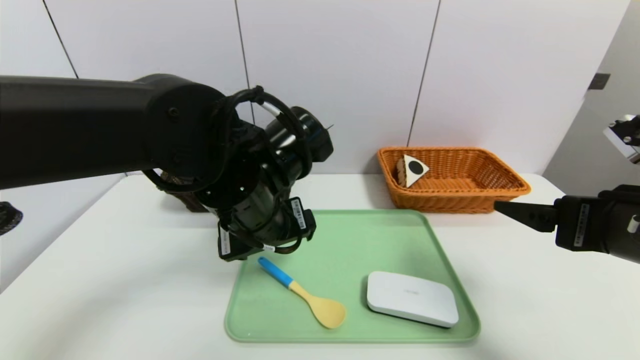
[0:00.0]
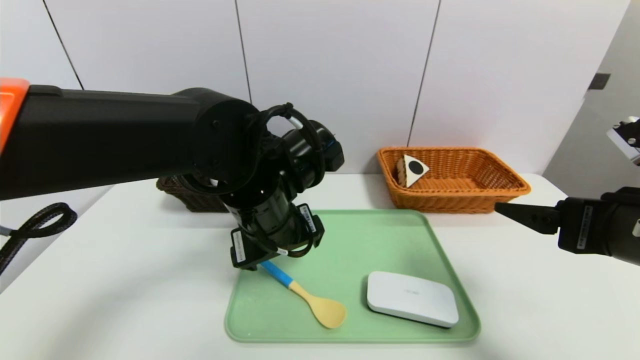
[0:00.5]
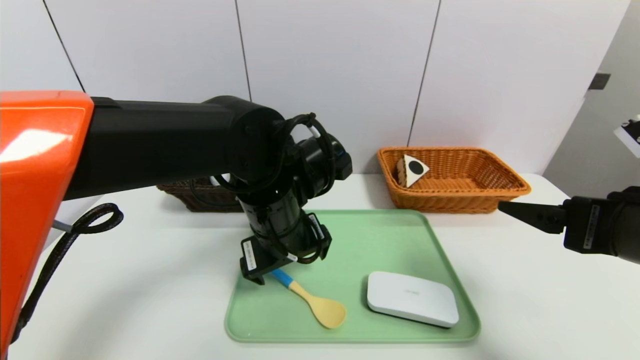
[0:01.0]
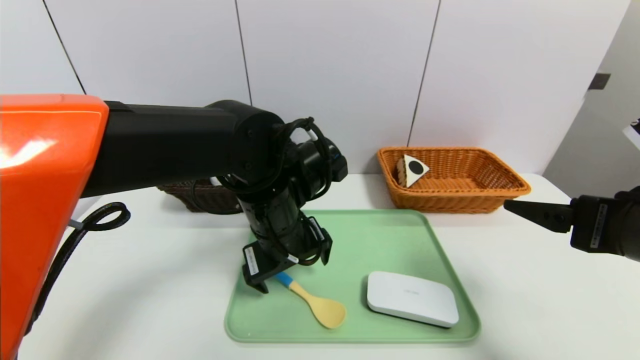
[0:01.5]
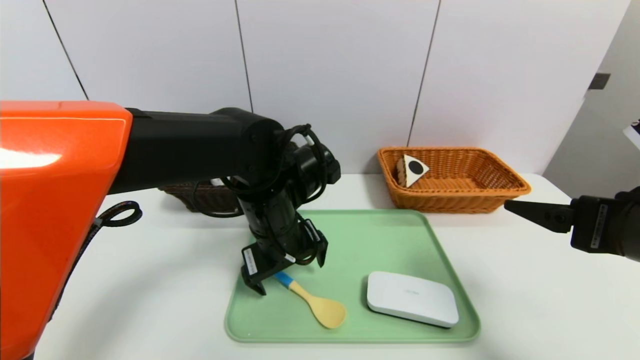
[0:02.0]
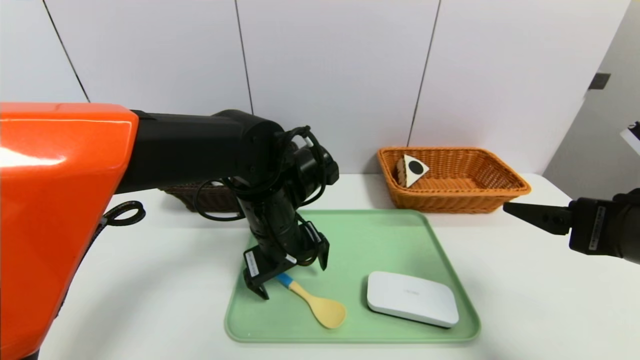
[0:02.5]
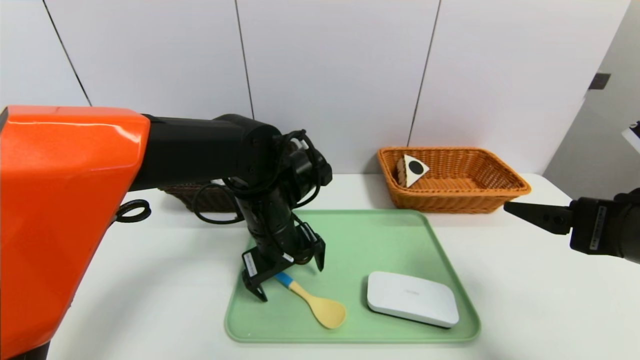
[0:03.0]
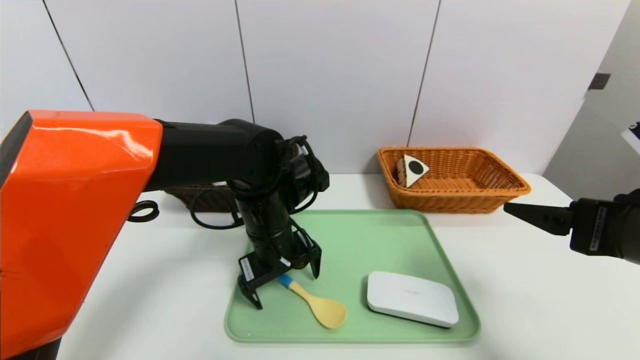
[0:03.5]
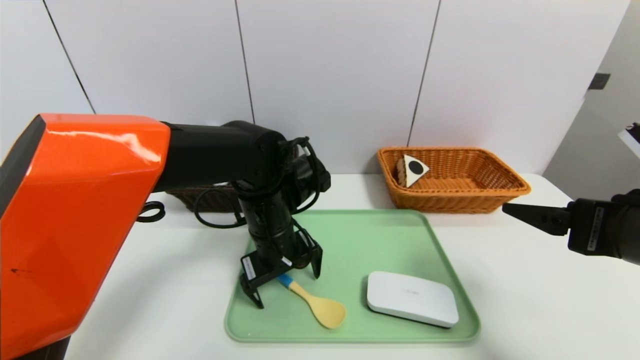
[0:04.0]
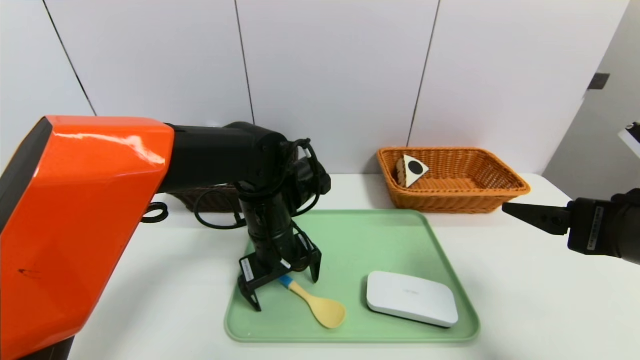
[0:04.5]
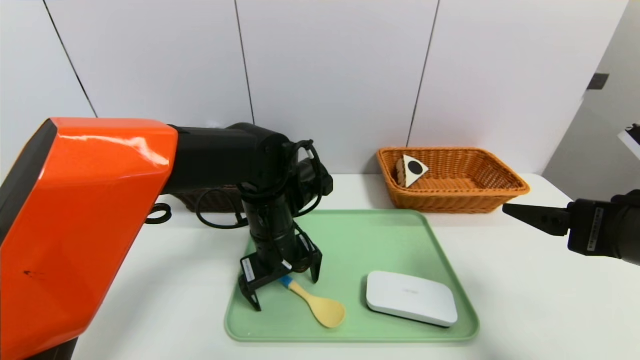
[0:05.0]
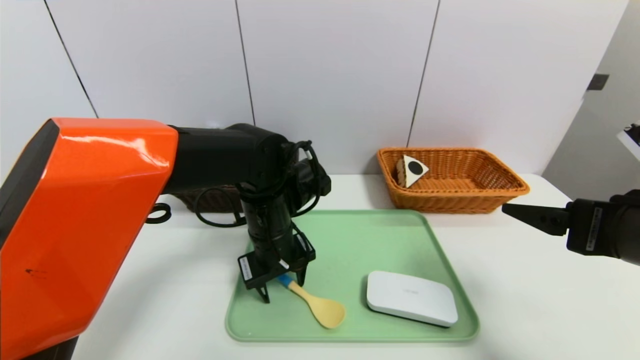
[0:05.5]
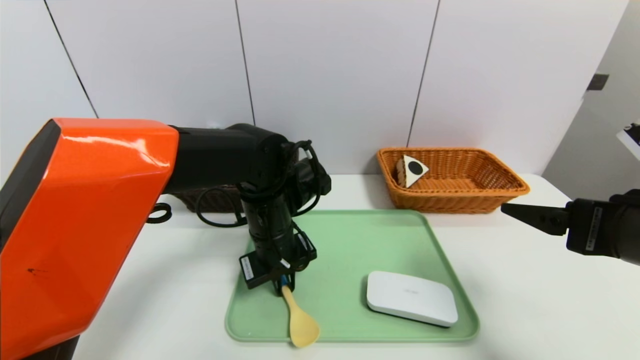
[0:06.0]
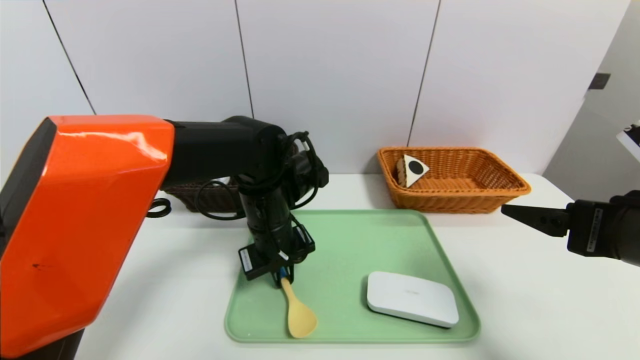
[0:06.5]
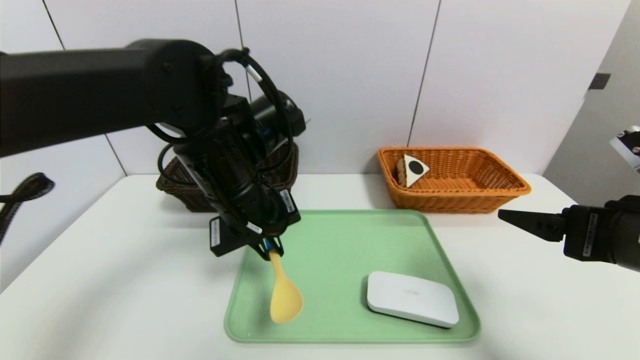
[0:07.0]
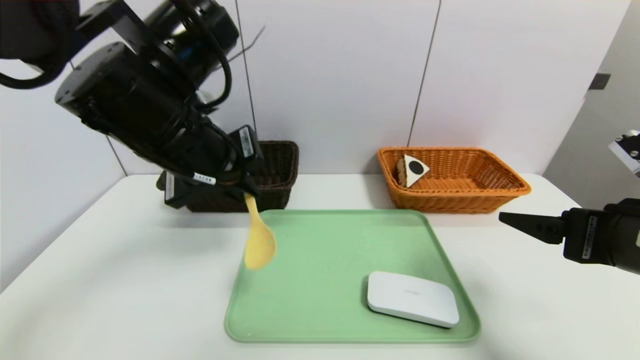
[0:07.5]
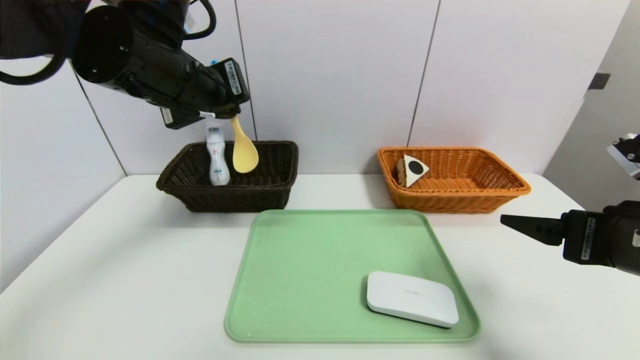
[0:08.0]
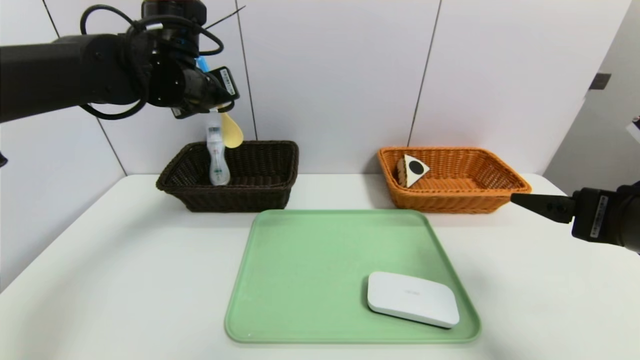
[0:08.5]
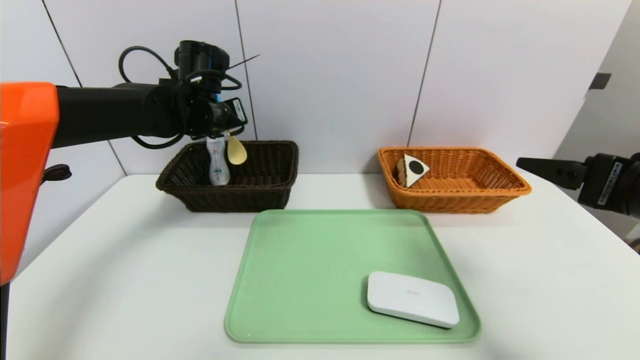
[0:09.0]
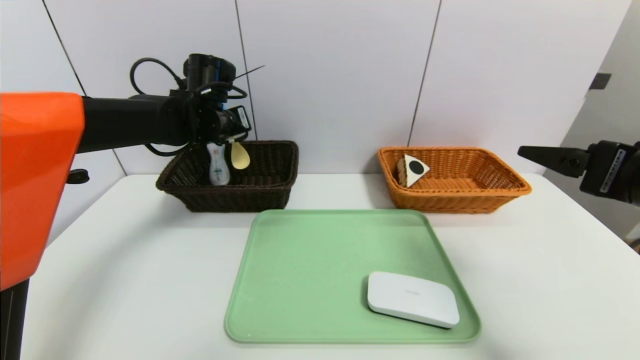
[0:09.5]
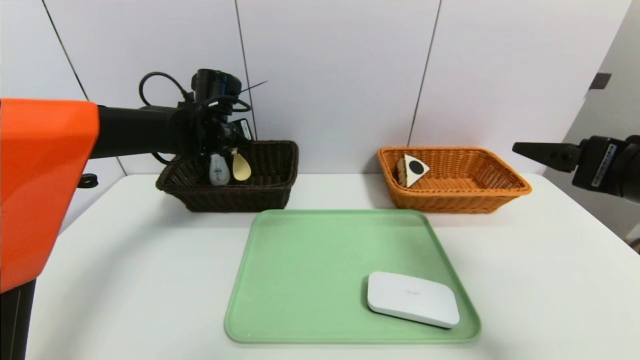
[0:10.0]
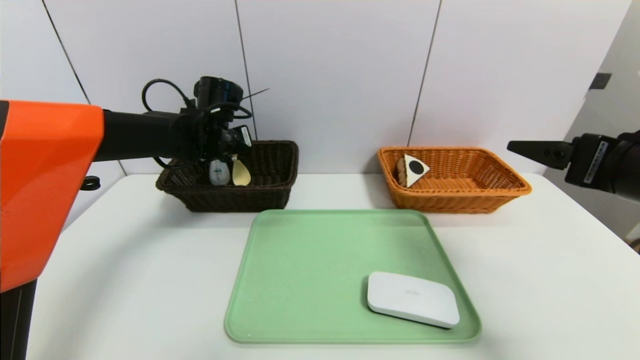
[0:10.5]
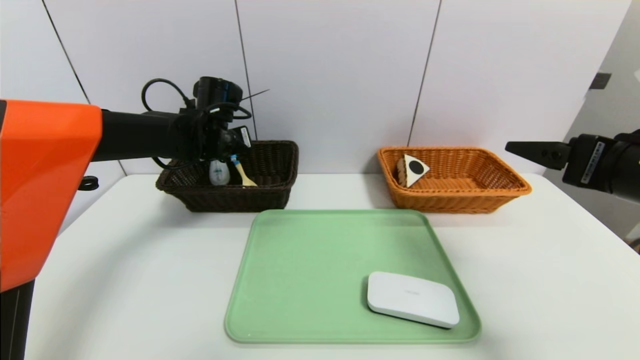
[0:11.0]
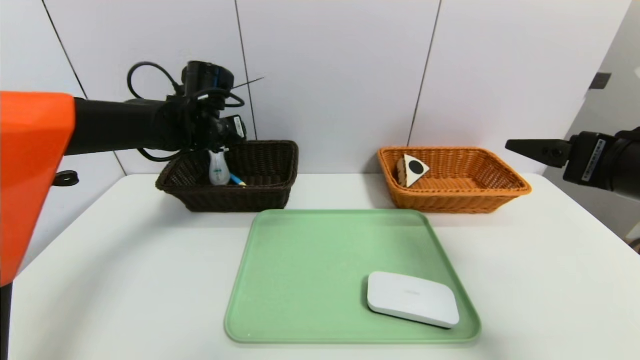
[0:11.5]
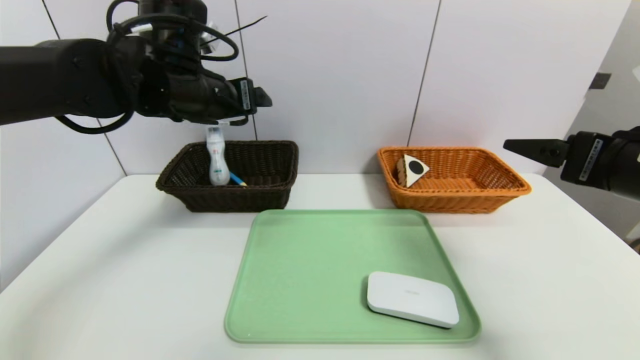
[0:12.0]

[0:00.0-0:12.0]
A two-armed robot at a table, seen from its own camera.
Task of the whole recording: place the food in the right basket with the right gripper, and place the non food items in the left basket with the left gripper.
Step, 0:00.0 to 0:11.0: Grasp the spoon and put it in the left basket.
0:00.0 to 0:02.0: The left gripper shifts by about 5 cm.
0:02.0 to 0:04.0: The grippers stay close to where they were, moving slightly.
0:04.0 to 0:06.0: The left gripper closes up.
0:06.0 to 0:08.0: The left gripper travels upward and to the left by roughly 20 cm.
0:08.0 to 0:10.0: The left gripper heads forward and downward, covering approximately 20 cm. Meanwhile the right gripper ends up roughly 5 cm from where it was.
0:10.0 to 0:12.0: The left gripper moves backward and upward, approximately 15 cm, and opens up.

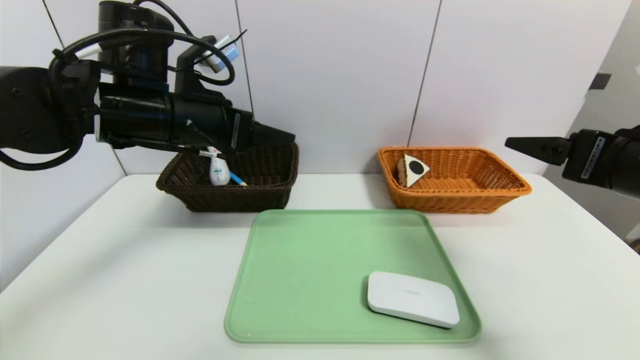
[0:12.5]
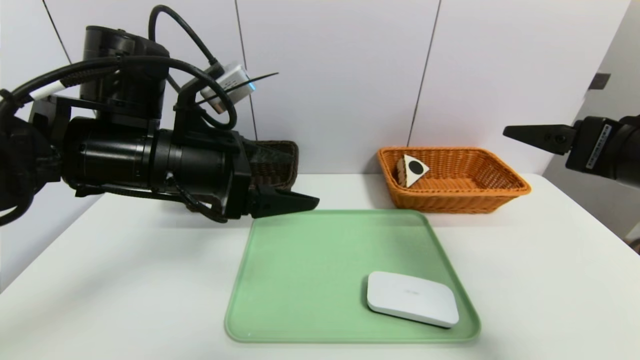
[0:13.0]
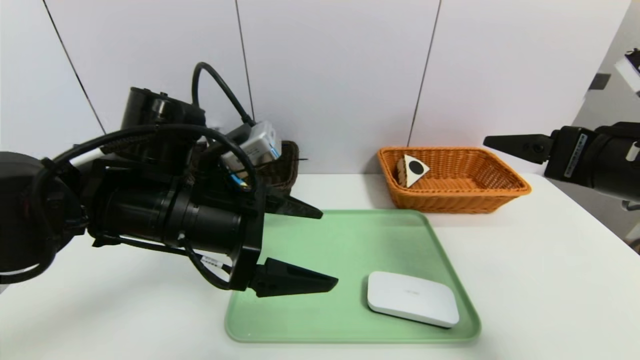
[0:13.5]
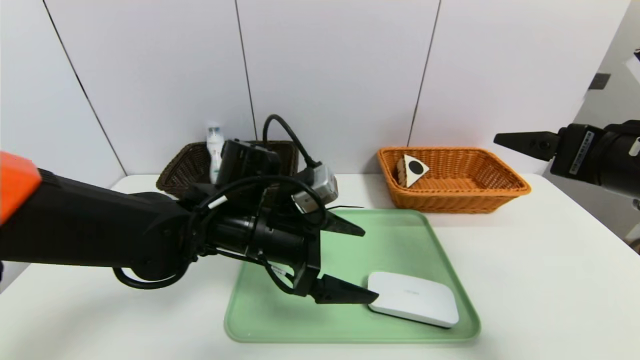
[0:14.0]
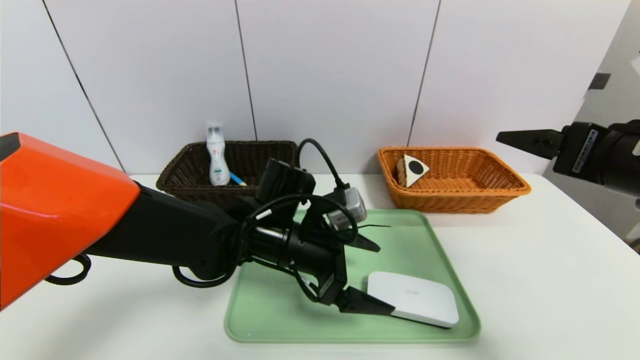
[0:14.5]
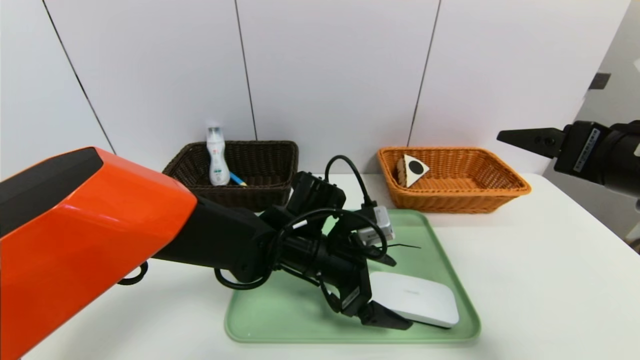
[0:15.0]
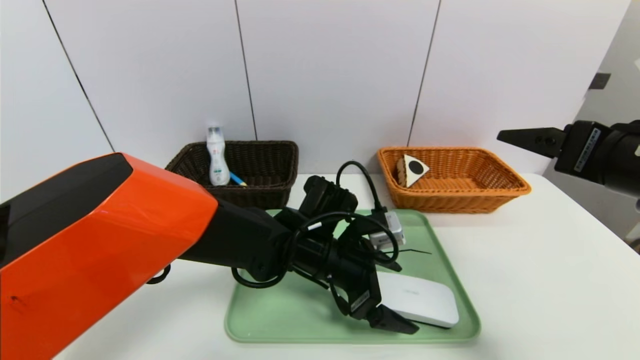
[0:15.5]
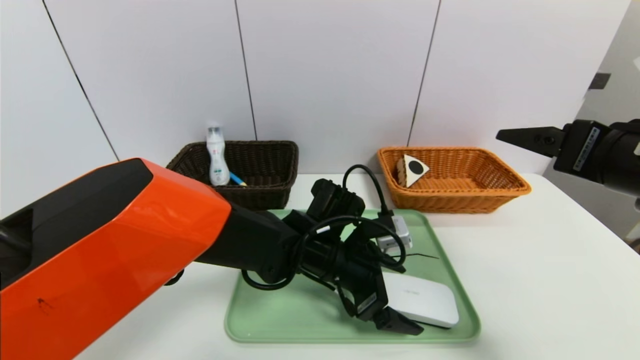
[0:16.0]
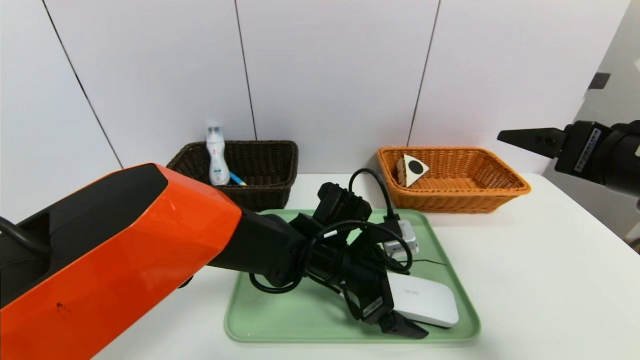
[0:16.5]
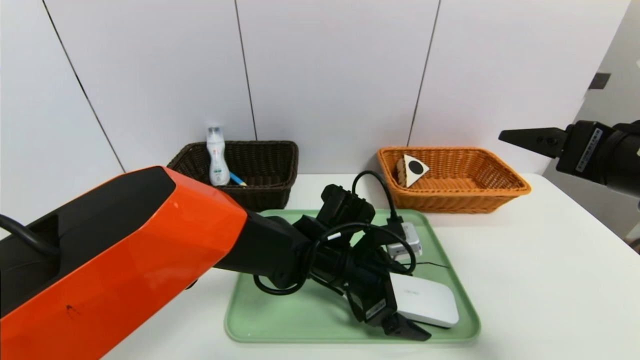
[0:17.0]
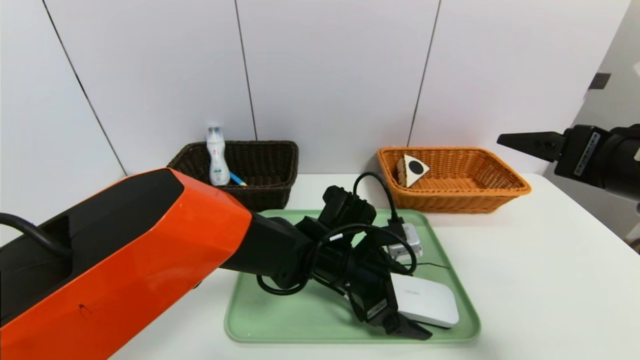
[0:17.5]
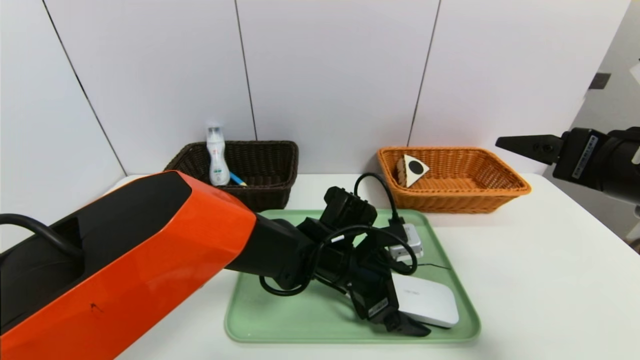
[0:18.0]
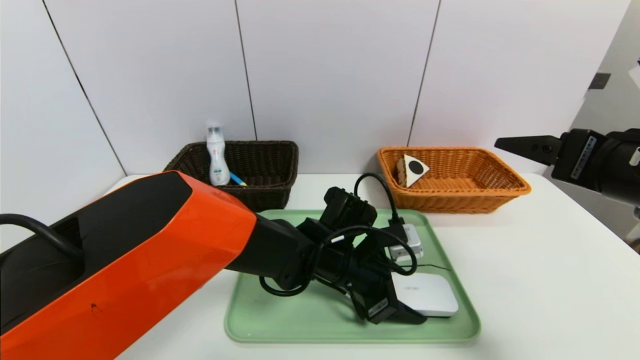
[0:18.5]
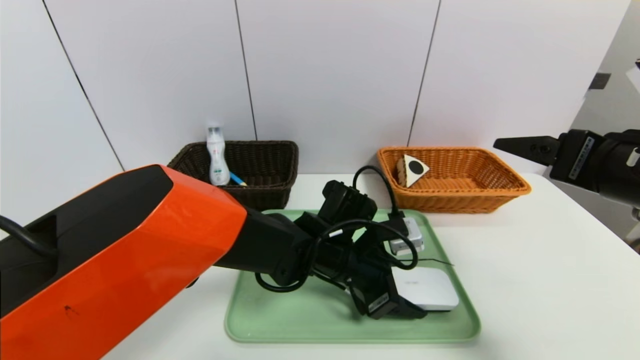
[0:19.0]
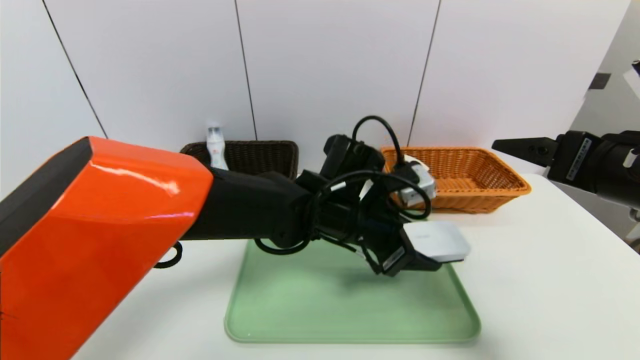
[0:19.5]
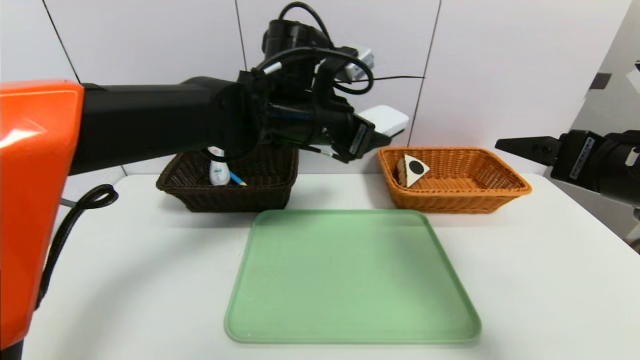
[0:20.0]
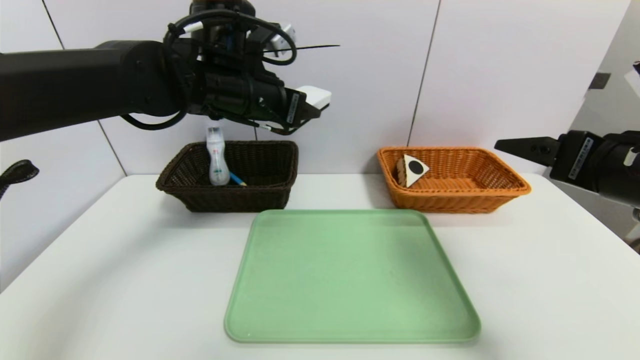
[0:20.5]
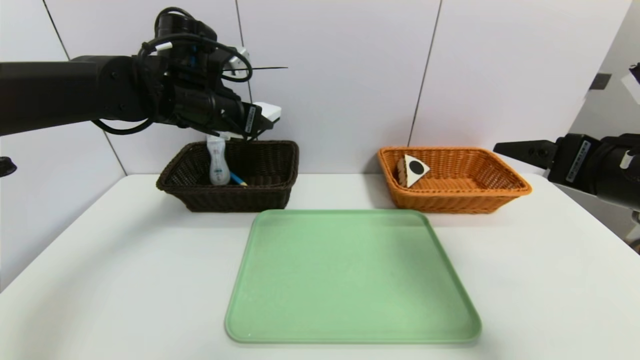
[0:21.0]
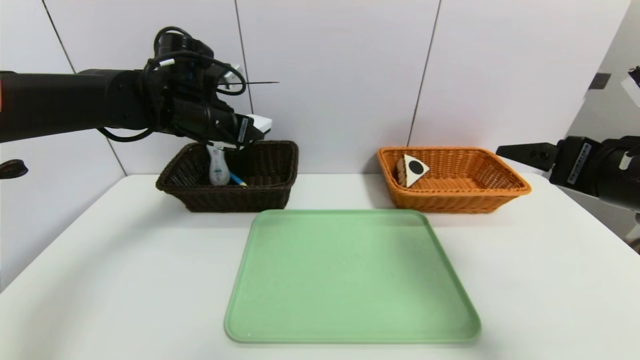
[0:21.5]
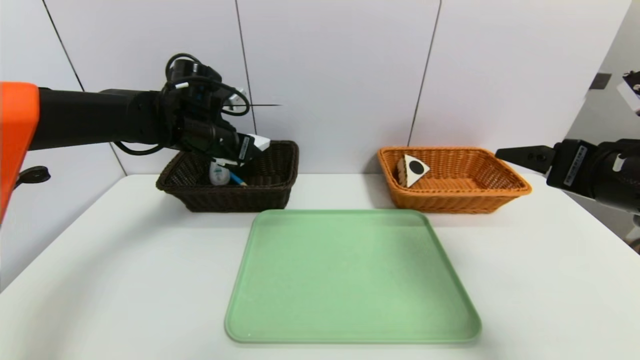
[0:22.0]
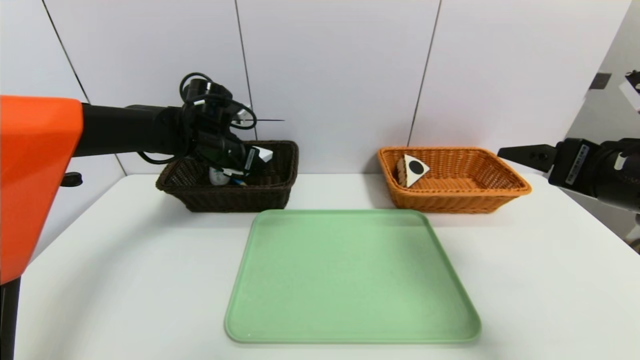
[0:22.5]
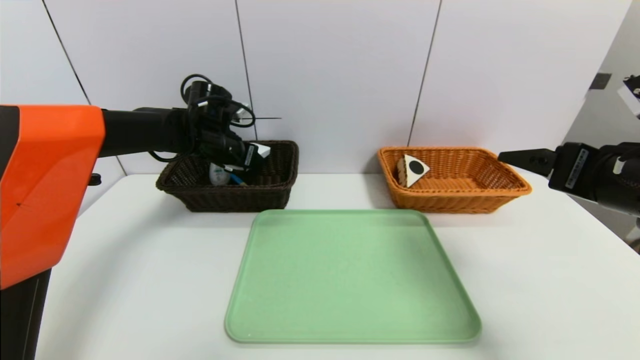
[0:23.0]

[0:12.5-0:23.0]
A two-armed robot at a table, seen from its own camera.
Task of the whole recording: place the food in the right basket with the right gripper, and place the non food items in the left basket with the left gripper.
0:12.5 to 0:14.5: The left gripper is displaced downward and to the right by about 20 cm.
0:14.5 to 0:16.5: The left gripper moves to the right, approximately 5 cm.
0:16.5 to 0:19.0: The left gripper closes up.
0:19.0 to 0:21.0: The left gripper goes about 30 cm to the left, upward and forward.
0:21.0 to 0:23.0: The left gripper is displaced downward and forward by roughly 10 cm.
